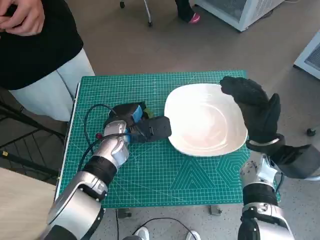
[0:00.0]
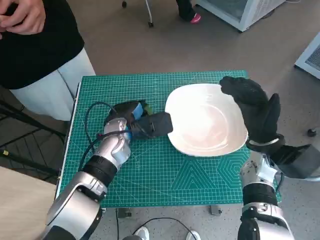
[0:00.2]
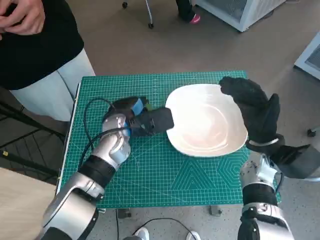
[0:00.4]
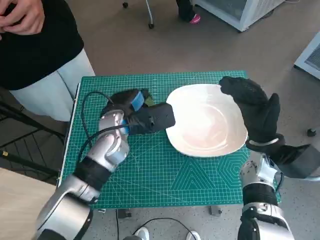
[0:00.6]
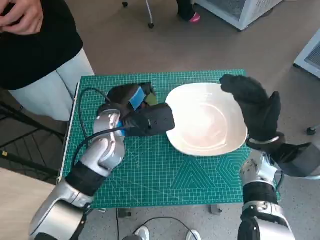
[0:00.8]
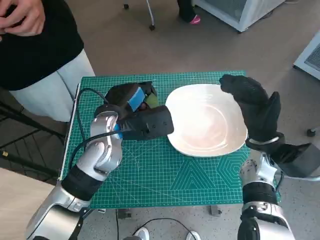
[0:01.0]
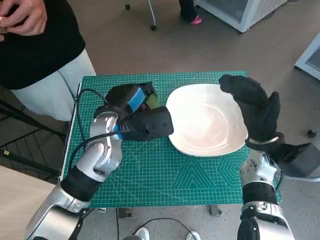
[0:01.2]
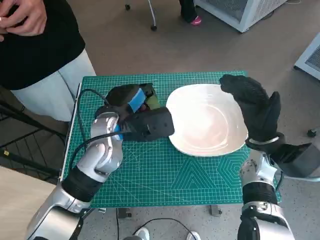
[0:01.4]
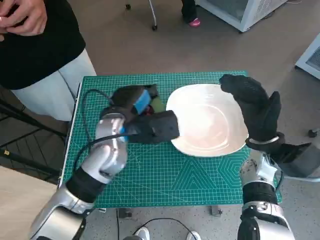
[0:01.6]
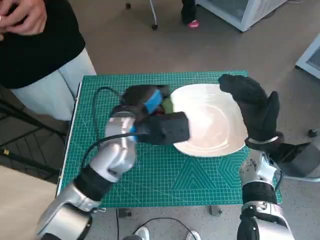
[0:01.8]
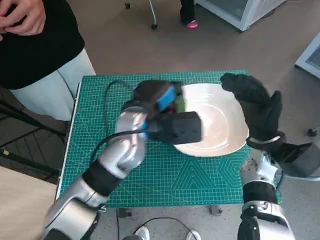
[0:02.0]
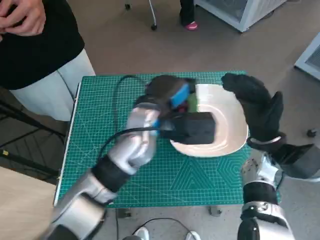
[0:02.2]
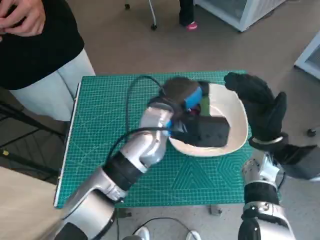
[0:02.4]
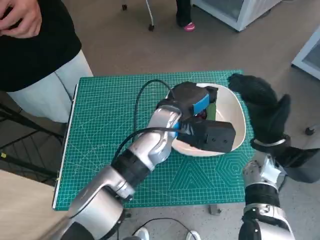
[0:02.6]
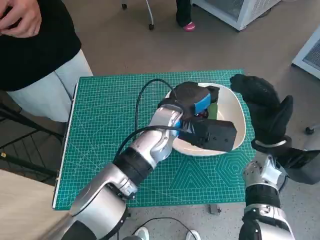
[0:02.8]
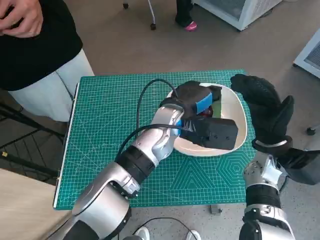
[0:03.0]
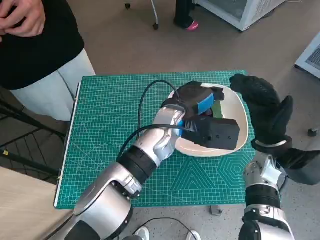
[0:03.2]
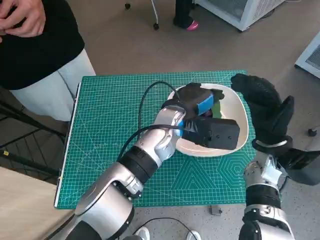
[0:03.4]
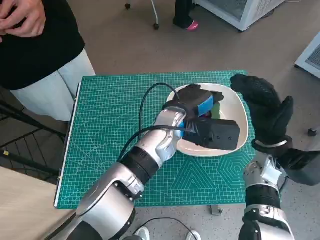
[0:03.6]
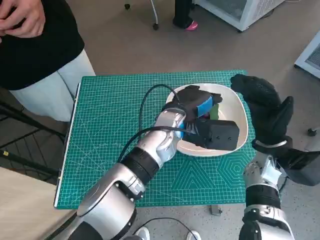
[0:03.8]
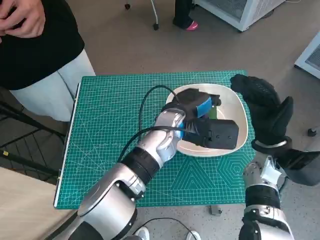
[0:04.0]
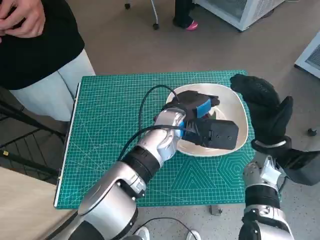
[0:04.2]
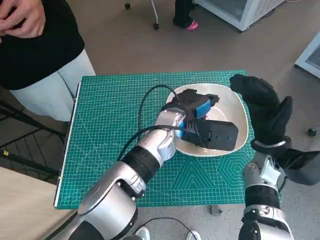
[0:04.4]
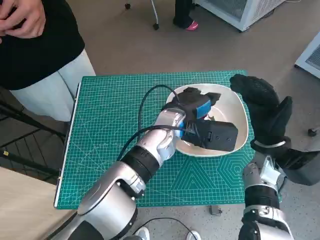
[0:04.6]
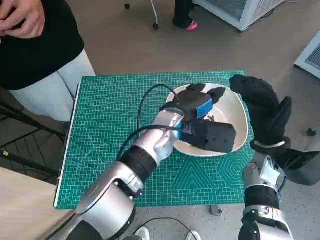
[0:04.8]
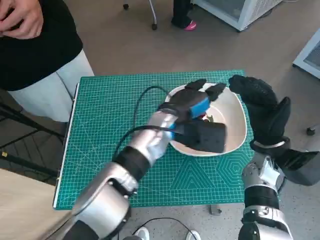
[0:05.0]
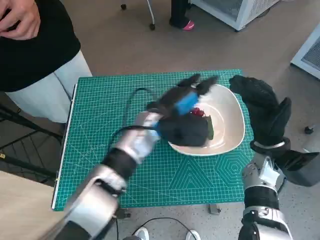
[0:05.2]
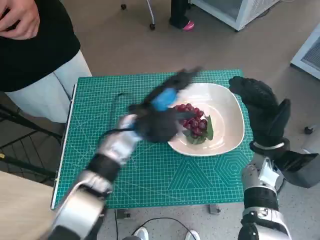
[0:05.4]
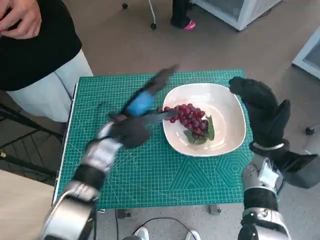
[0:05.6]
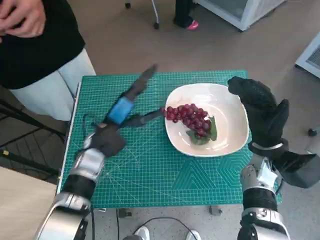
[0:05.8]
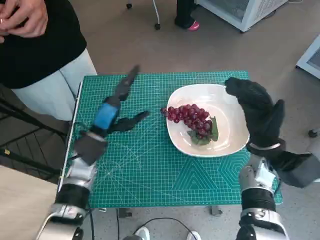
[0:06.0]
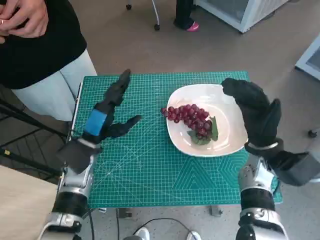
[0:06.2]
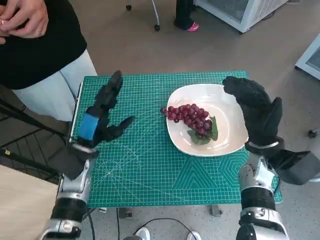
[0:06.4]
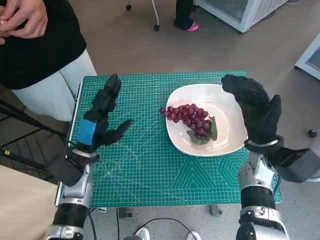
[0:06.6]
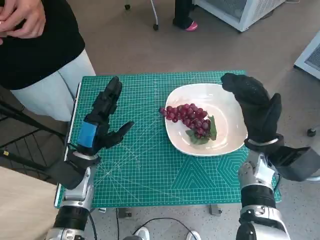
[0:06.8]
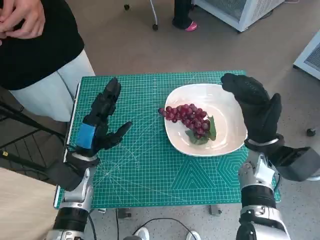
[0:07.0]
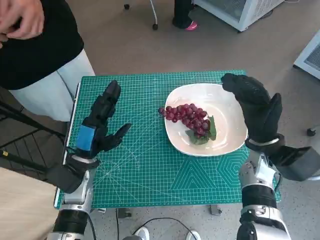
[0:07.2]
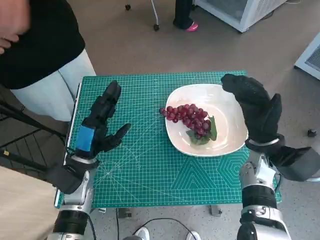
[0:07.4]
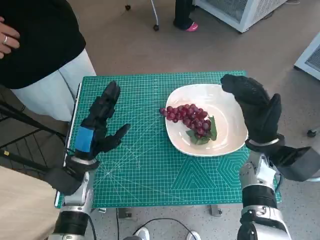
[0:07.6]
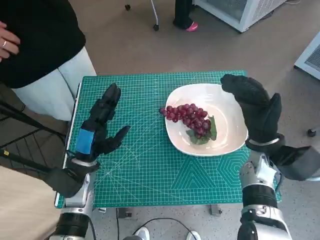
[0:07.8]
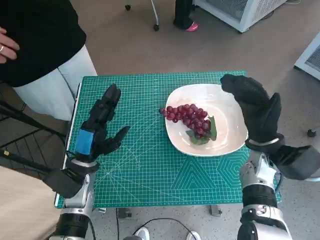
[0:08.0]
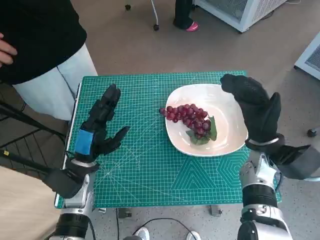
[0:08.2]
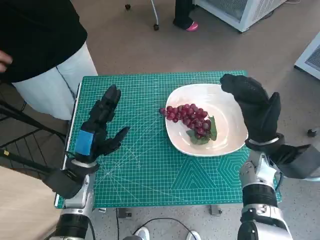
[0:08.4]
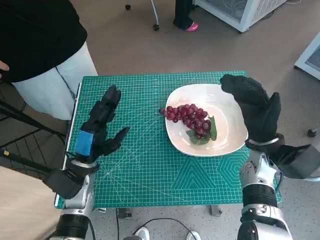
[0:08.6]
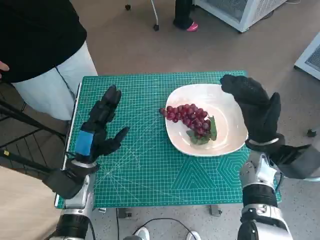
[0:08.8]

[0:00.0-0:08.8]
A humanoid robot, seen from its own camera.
Task of the whole recording: Pick up the grapes and put them on the plate.
Step, 0:00.0 to 0:05.4: Place the grapes in the plate with left hand.
0:00.0 to 0:01.4: The left hand shifts roughly 10 cm upward.
0:01.4 to 0:03.0: The left hand shifts some 10 cm to the right.
0:03.0 to 0:04.4: The hands stay close to where they were, moving slightly.
0:04.4 to 0:05.8: The left hand goes about 15 cm to the left.
0:05.8 to 0:07.4: The left hand goes approximately 5 cm backward.
0:07.4 to 0:08.8: Neither hand changes place.

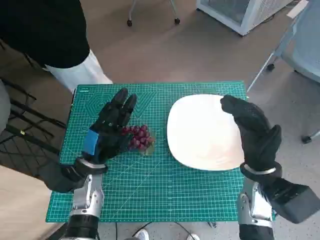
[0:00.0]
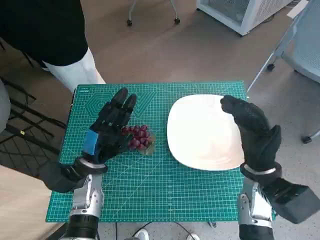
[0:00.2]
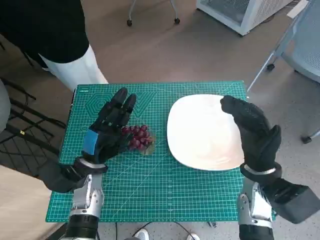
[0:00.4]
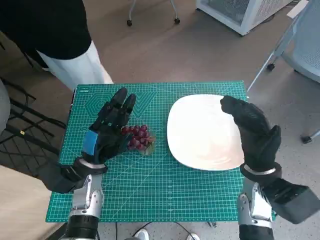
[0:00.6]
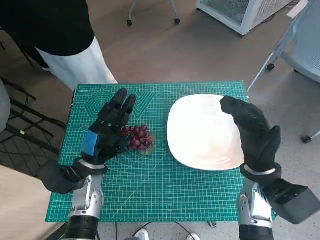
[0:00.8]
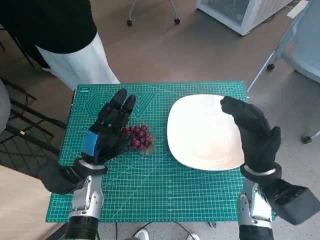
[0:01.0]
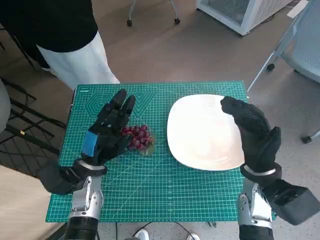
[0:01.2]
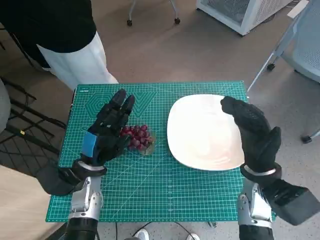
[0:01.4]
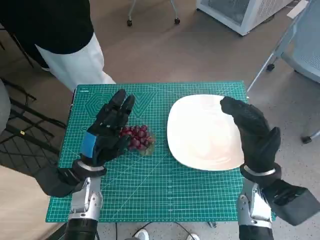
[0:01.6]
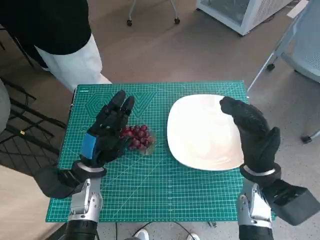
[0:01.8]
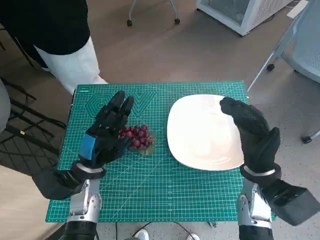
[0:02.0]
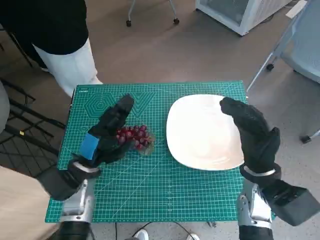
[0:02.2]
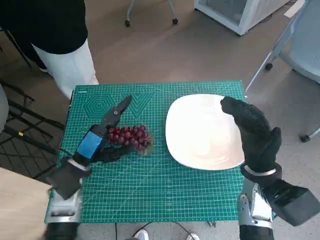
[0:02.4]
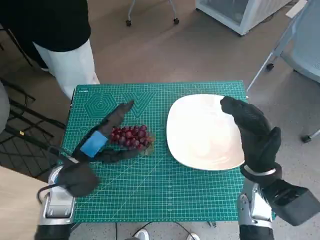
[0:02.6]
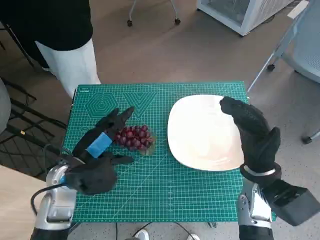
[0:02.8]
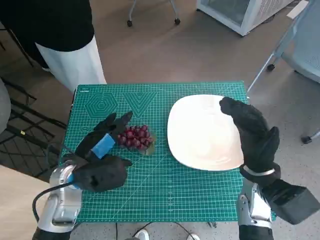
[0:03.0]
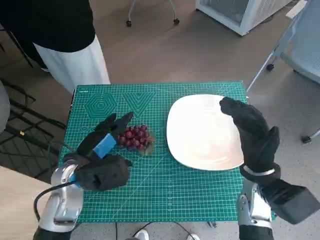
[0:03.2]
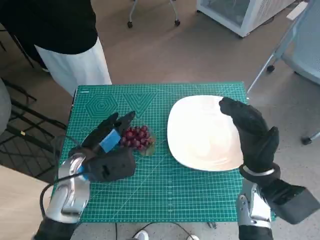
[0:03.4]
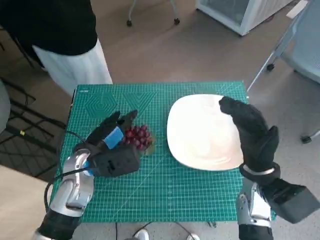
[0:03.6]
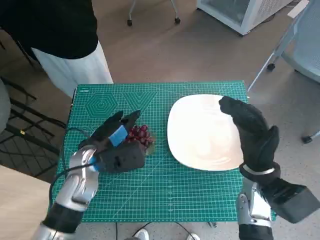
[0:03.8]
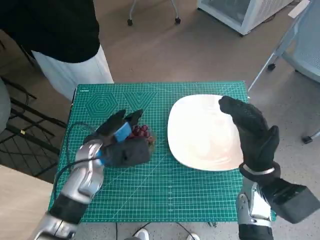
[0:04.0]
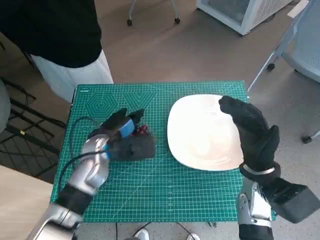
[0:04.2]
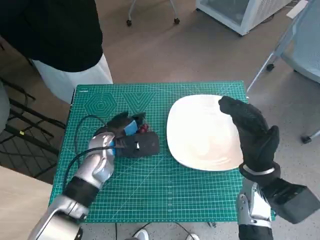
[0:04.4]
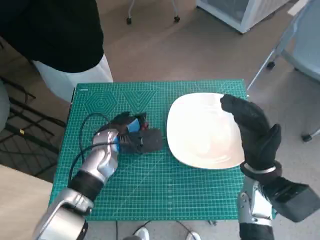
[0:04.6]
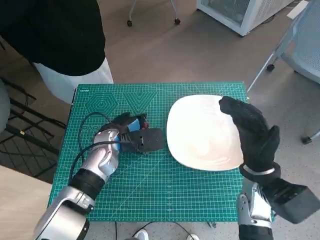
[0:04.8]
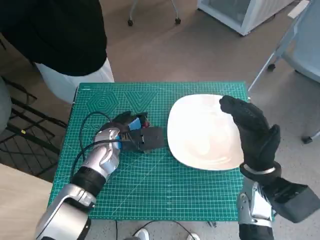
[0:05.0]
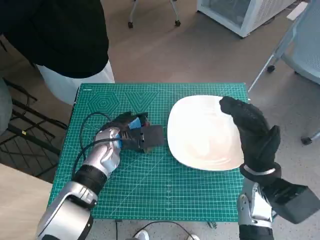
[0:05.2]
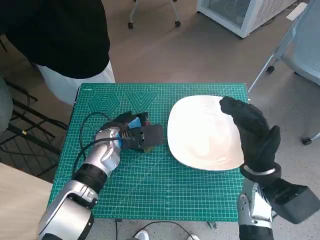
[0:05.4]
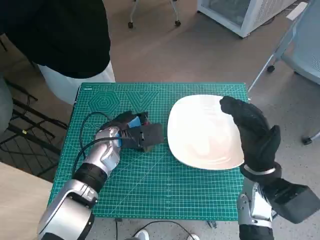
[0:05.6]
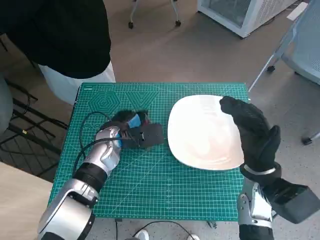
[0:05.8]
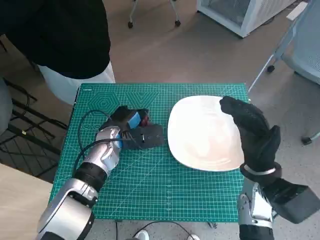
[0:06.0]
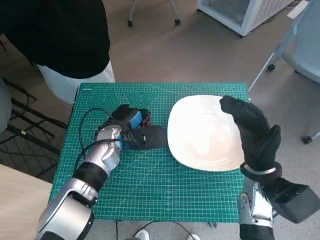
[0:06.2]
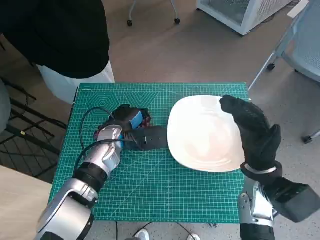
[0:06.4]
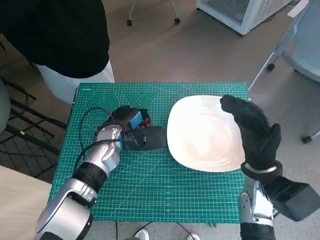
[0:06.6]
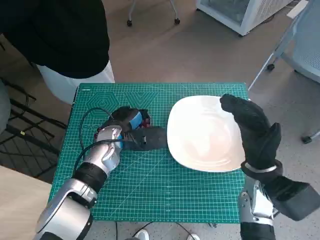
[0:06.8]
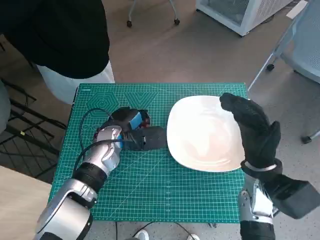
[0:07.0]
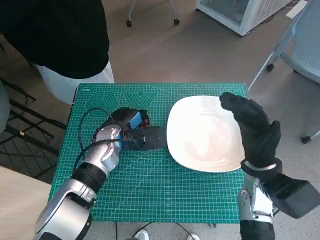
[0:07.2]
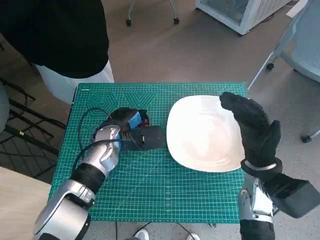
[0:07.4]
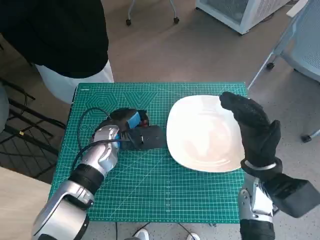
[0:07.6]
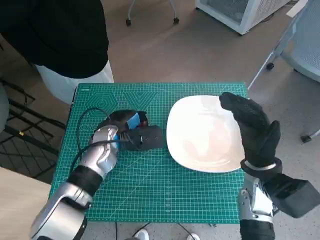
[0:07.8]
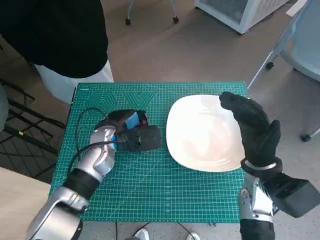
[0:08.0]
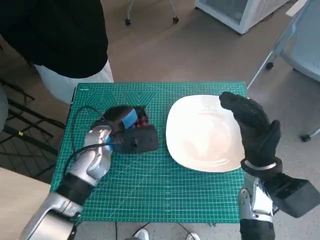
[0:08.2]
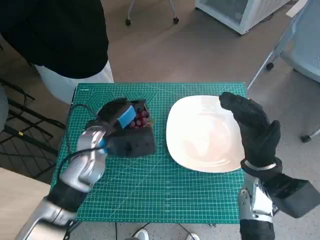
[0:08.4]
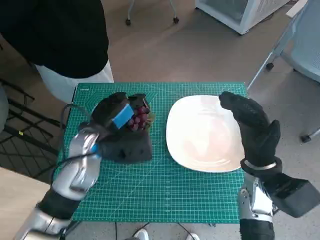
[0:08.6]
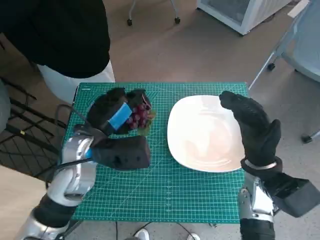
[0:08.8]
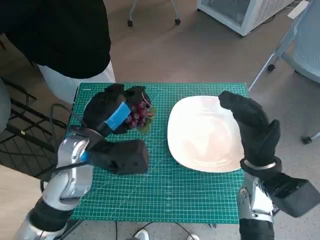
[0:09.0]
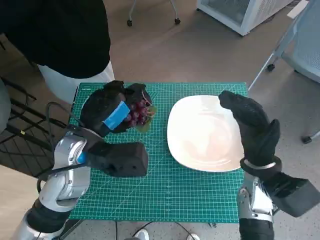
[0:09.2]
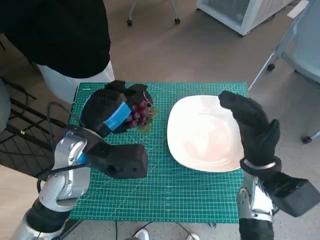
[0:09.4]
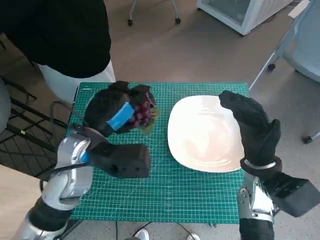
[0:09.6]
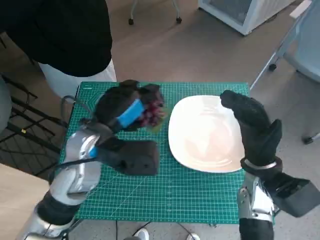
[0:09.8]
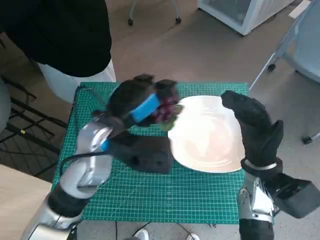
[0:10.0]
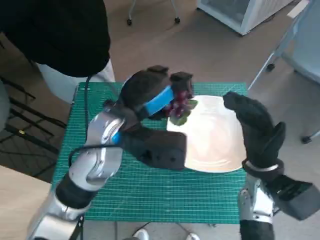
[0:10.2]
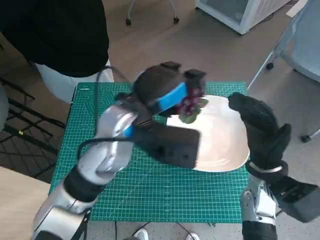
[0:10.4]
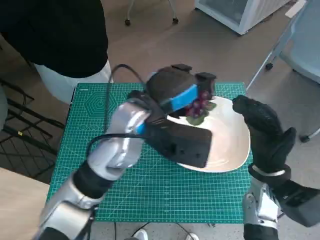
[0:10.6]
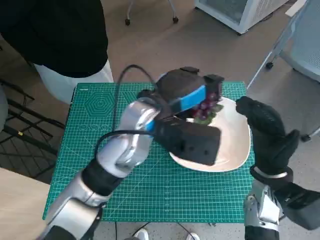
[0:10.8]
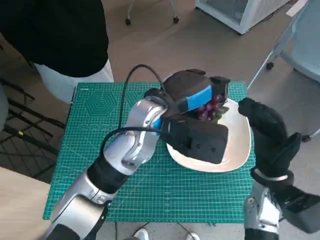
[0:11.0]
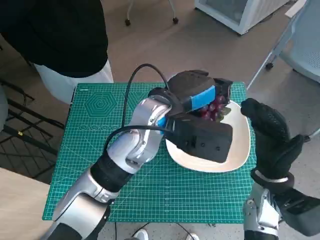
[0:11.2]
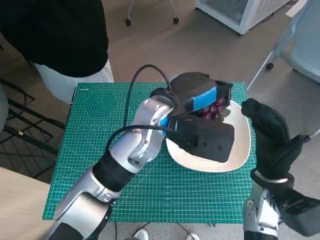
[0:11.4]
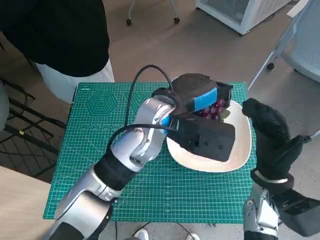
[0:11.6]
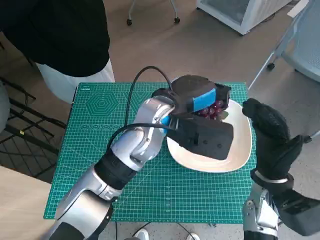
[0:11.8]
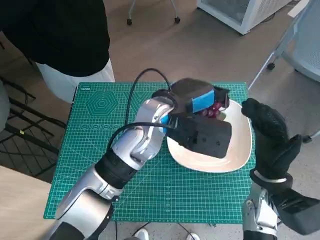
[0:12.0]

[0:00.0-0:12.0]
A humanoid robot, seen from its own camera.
Task of the whole recording: Pick up the grapes and put them on the plate.
Step, 0:00.0 to 0:06.4: Grasp the grapes with left hand.
0:01.6 to 0:03.0: The left hand goes about 5 cm upward.
0:03.0 to 0:04.4: The left hand travels forward by roughly 10 cm.
0:04.4 to 0:07.6: The hands move only a little.
0:07.6 to 0:09.0: The left hand goes about 10 cm upward and backward.
0:09.0 to 0:10.4: The left hand shifts about 10 cm to the right and upward.
0:10.4 to 0:12.0: The left hand moves to the right, roughly 5 cm.

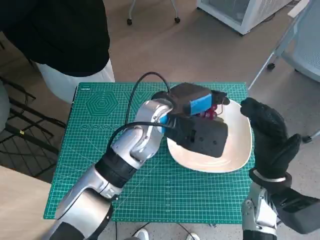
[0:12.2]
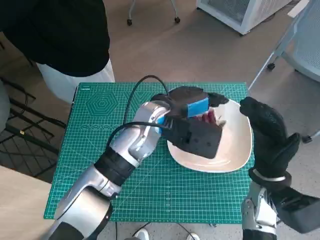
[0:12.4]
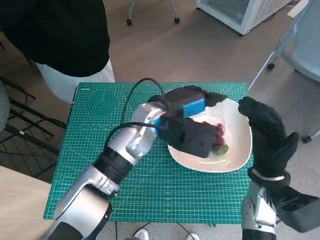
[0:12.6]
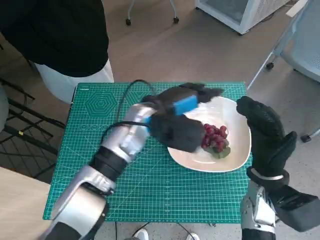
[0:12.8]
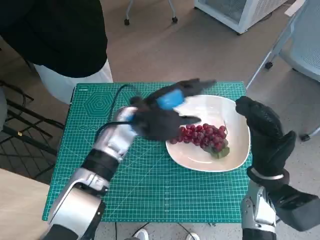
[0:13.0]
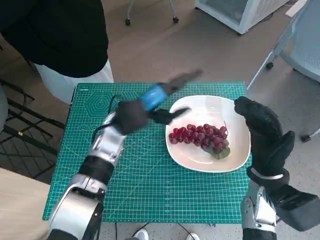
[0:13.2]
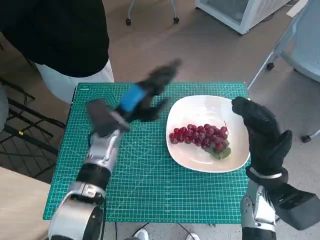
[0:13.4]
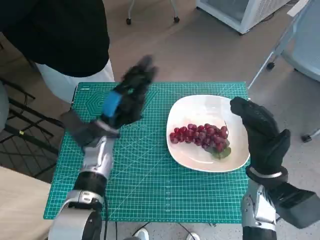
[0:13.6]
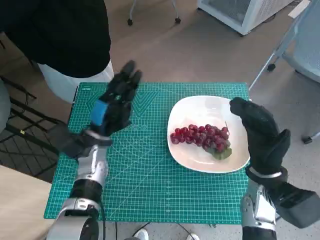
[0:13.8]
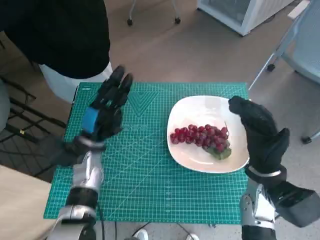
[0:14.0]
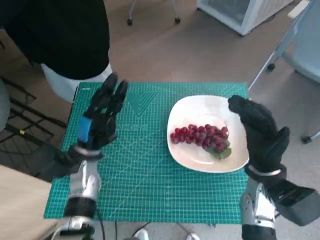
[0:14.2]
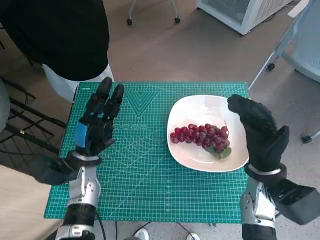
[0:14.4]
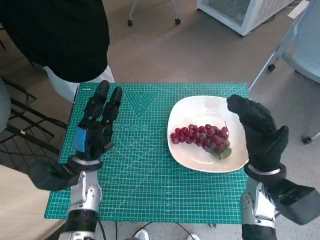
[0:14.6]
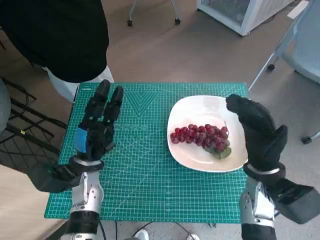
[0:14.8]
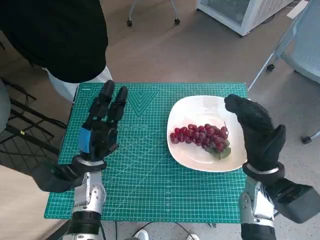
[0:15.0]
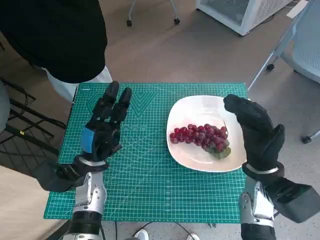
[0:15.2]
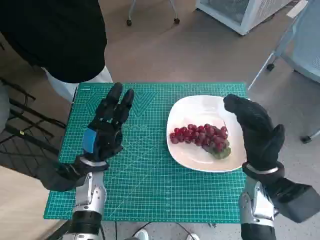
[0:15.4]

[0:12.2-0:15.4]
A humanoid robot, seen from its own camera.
Task of the whole recording: Pick up the grapes and put them on the plate.
0:12.2 to 0:13.8: The left hand moves to the left and downward, some 20 cm.
0:13.8 to 0:15.4: The left hand travels backward by about 5 cm.
